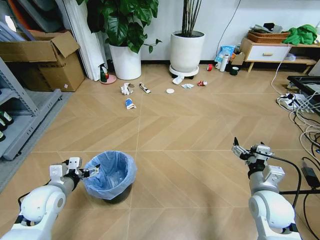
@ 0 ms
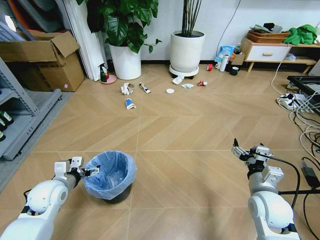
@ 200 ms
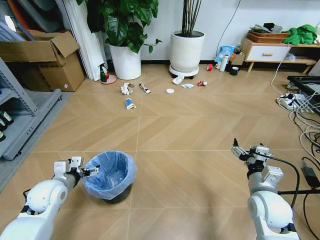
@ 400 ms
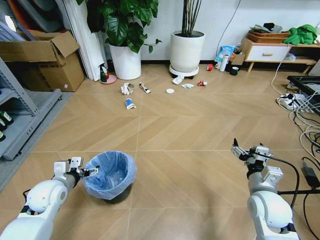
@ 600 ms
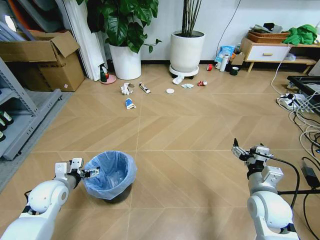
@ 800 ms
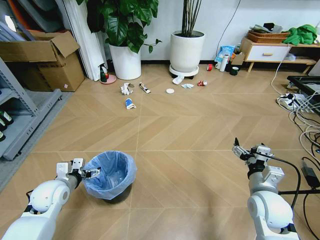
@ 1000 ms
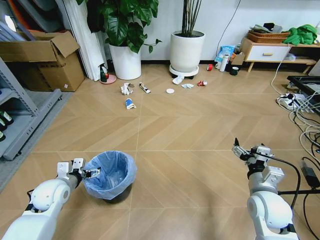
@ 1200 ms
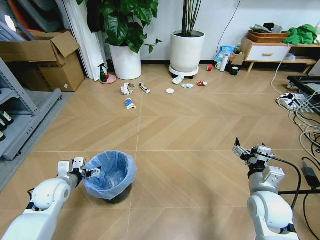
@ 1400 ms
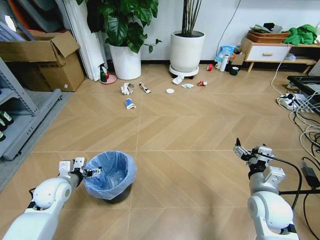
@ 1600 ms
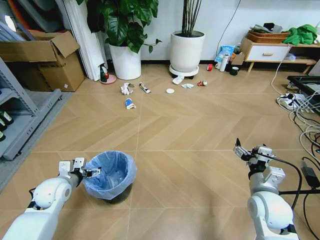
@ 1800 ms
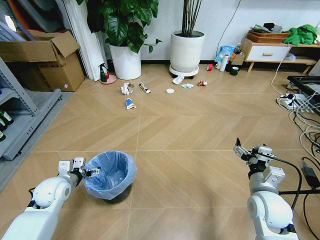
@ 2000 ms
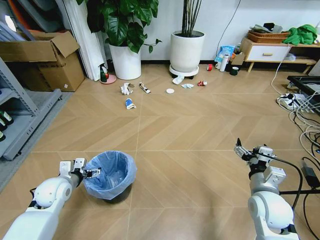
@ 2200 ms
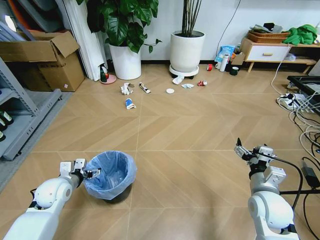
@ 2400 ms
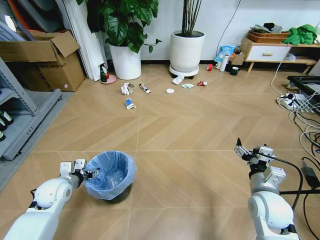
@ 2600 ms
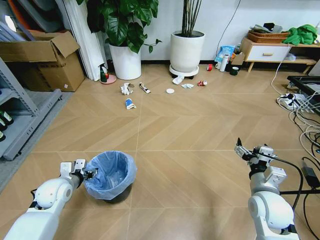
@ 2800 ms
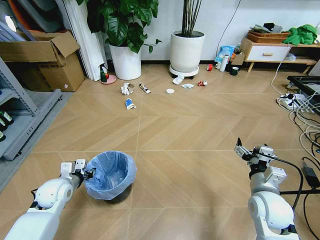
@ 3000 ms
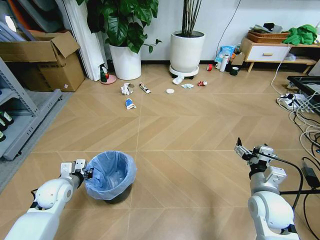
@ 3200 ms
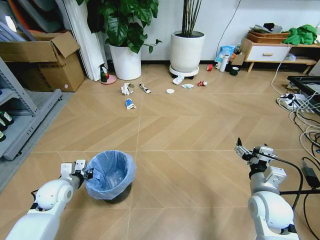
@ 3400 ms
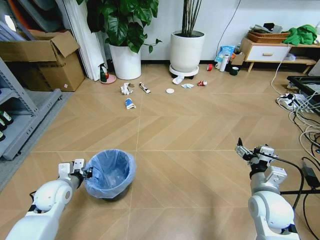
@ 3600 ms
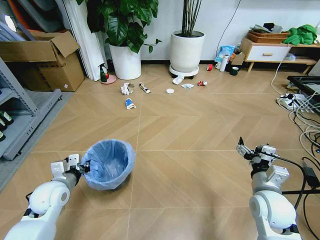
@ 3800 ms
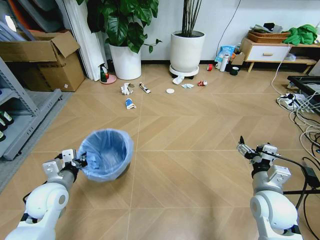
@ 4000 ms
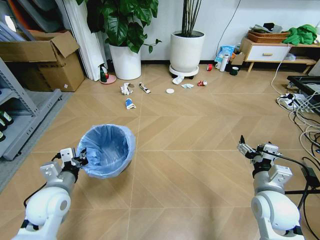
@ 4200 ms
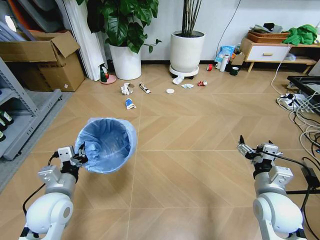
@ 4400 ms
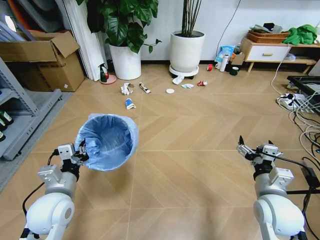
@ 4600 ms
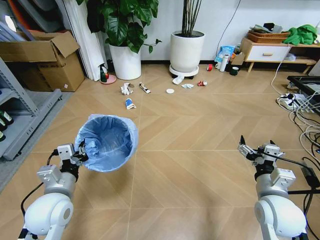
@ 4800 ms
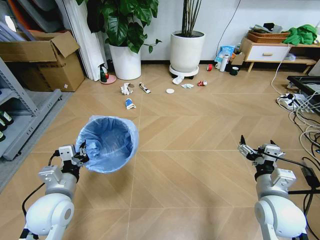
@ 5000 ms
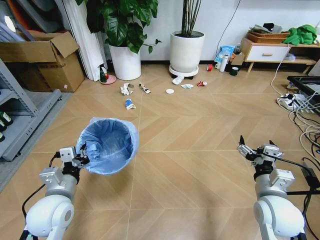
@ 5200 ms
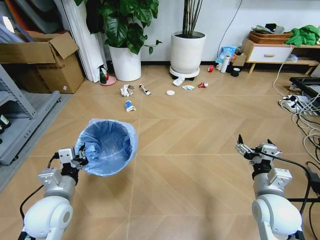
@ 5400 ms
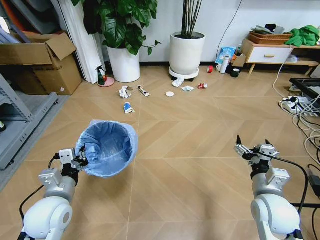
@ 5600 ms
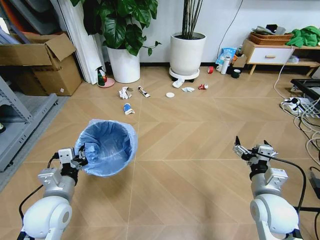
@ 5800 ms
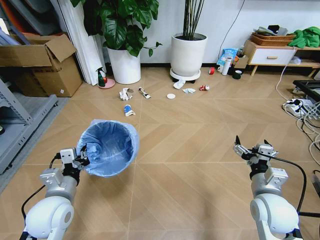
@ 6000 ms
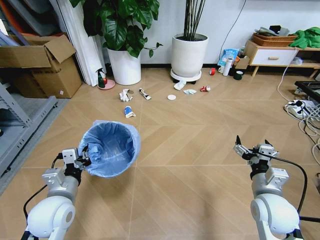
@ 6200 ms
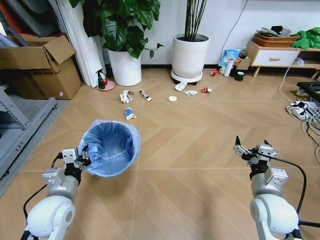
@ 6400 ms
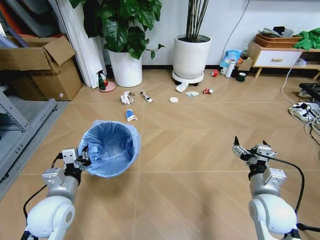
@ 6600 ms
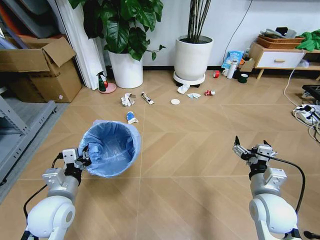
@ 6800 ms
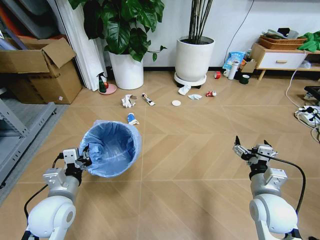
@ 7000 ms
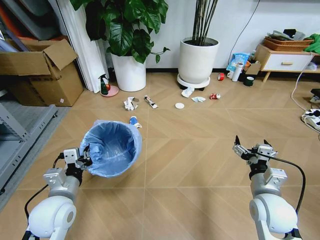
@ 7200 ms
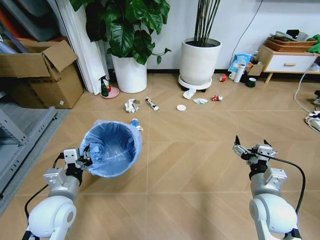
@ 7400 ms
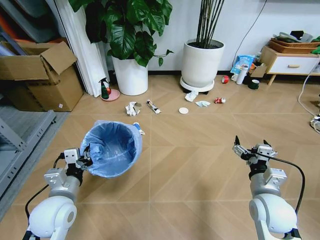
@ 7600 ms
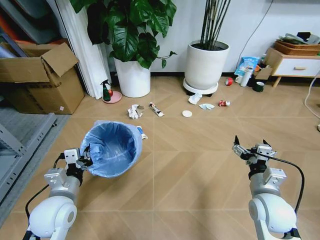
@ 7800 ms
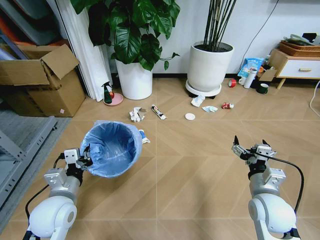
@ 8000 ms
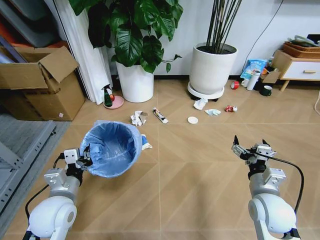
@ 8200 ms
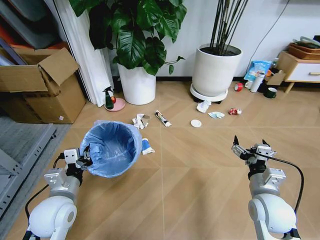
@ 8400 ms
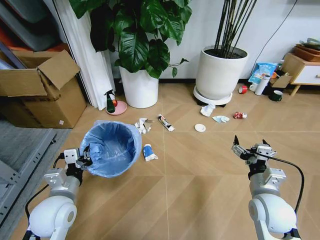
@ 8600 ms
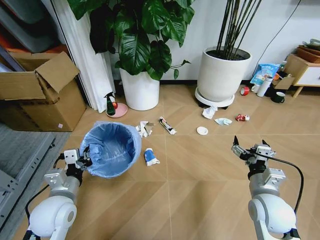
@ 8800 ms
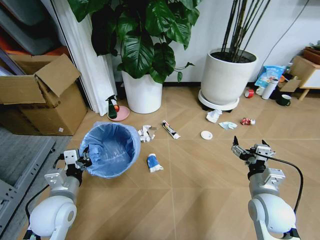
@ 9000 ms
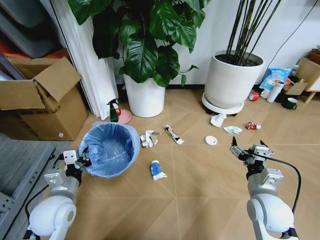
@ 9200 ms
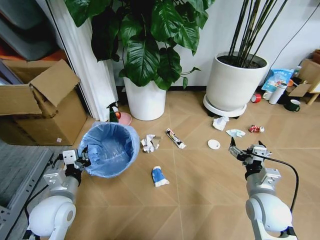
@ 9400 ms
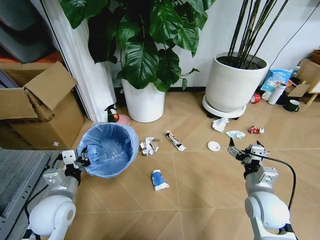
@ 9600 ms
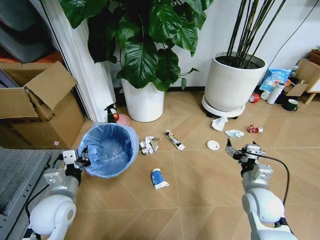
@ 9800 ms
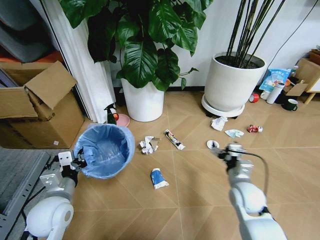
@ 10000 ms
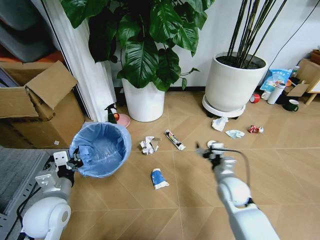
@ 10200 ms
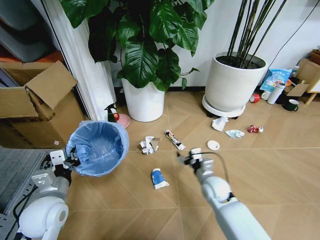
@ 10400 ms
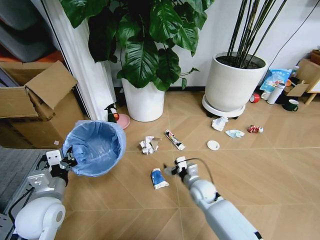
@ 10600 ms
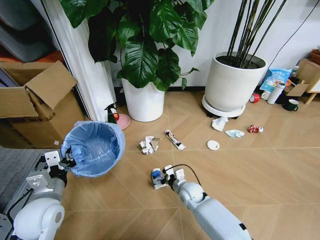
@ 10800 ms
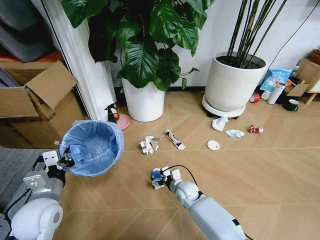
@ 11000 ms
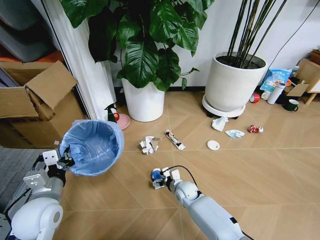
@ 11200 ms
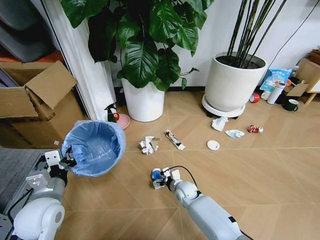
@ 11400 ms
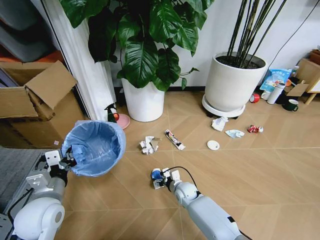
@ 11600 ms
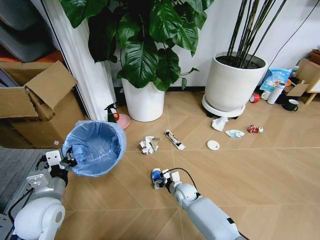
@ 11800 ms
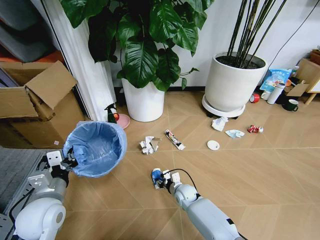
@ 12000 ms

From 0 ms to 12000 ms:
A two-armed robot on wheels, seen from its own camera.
Task of the whole recording: Pick up the trash bin and place the garbage on the floor into it.
From 1600 ms to 3000 ms: The left gripper closes.
From 3000 ms to 4400 ms: The left gripper is displaced backward, upward and to the right by about 15 cm.
From 9000 ms to 10400 ms: The right gripper moves downward, forward and to the left, approximately 20 cm.
From 10400 ms to 12000 ms: The right gripper is displaced downward and to the left by approximately 15 cm, and closes up.

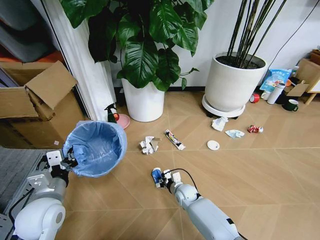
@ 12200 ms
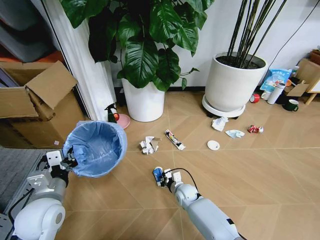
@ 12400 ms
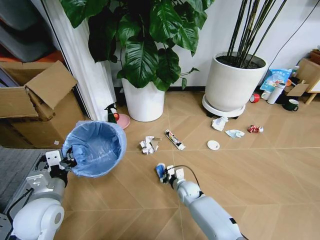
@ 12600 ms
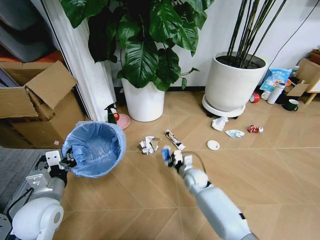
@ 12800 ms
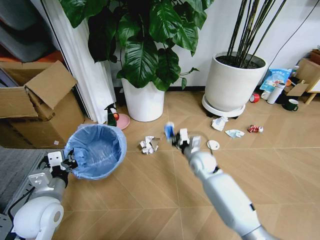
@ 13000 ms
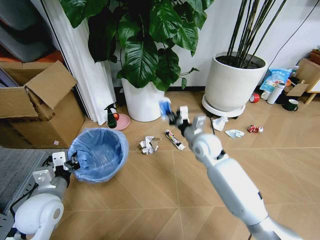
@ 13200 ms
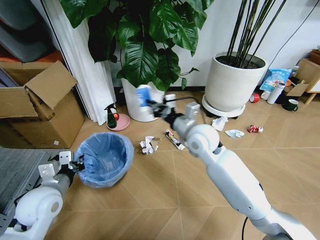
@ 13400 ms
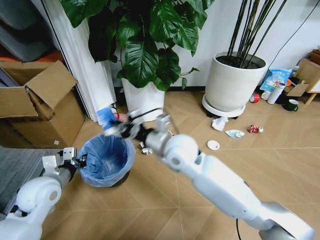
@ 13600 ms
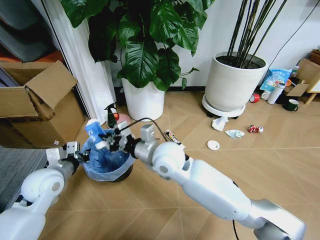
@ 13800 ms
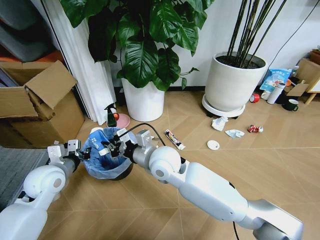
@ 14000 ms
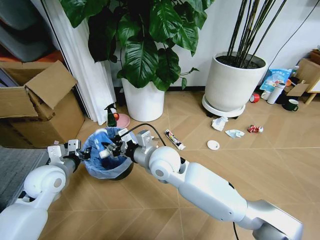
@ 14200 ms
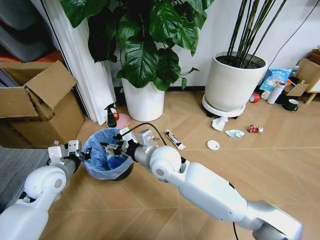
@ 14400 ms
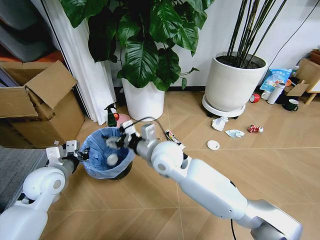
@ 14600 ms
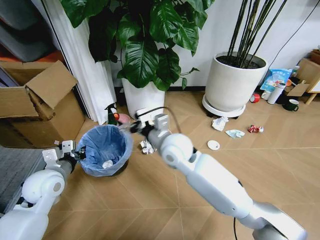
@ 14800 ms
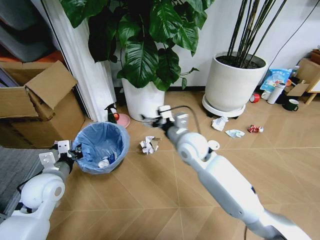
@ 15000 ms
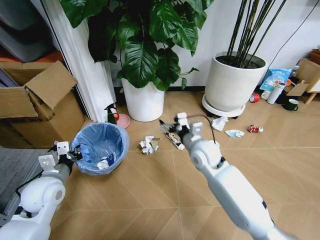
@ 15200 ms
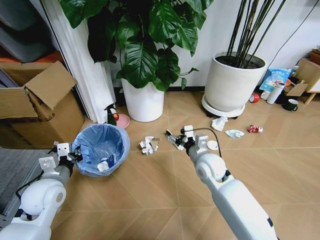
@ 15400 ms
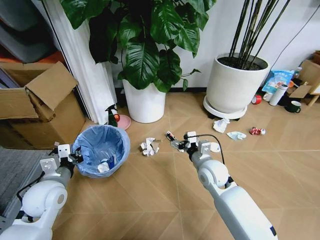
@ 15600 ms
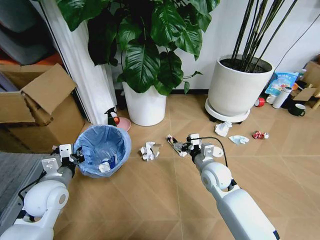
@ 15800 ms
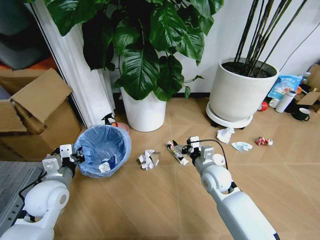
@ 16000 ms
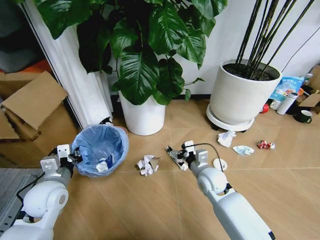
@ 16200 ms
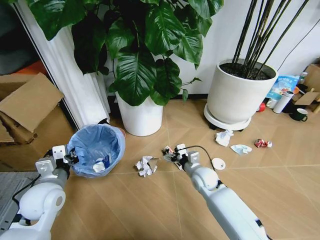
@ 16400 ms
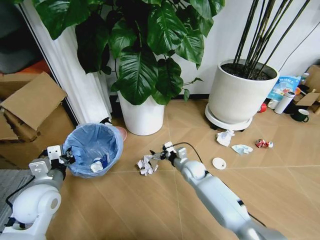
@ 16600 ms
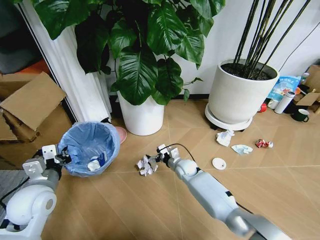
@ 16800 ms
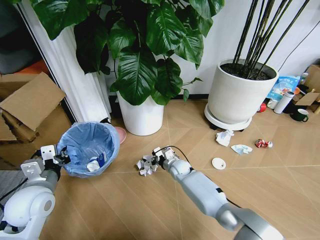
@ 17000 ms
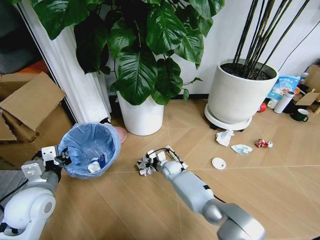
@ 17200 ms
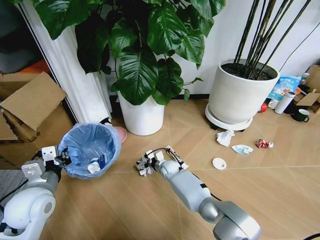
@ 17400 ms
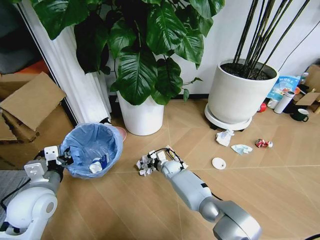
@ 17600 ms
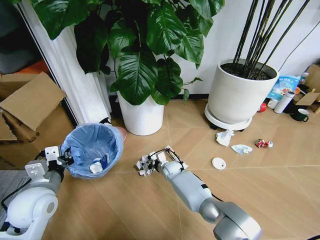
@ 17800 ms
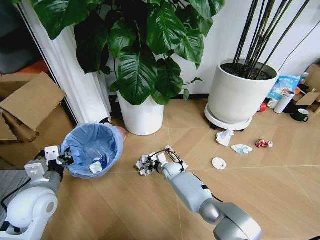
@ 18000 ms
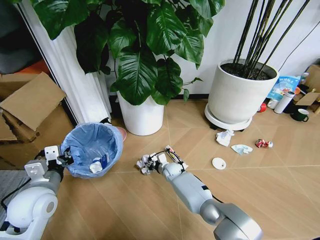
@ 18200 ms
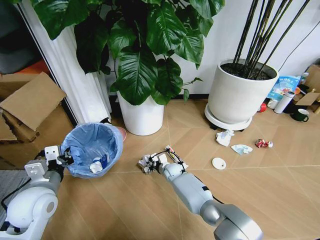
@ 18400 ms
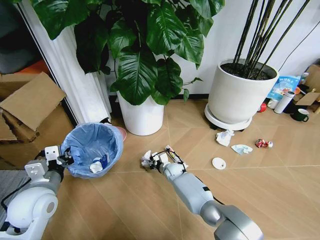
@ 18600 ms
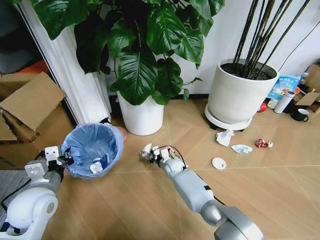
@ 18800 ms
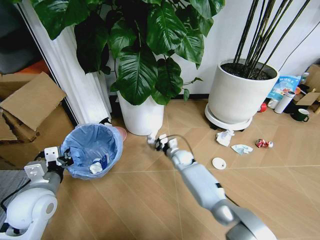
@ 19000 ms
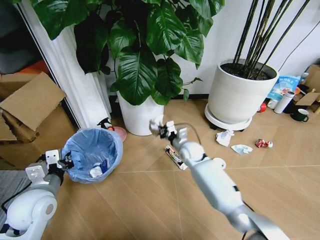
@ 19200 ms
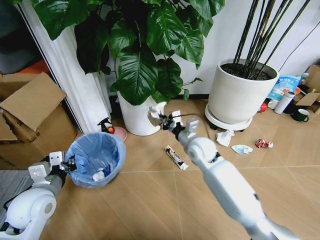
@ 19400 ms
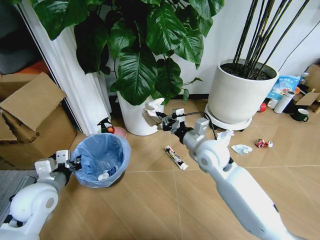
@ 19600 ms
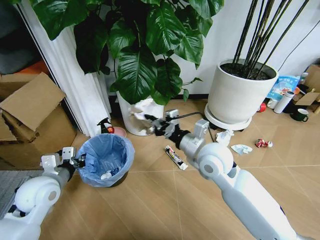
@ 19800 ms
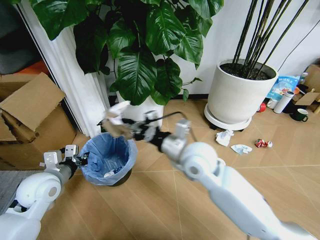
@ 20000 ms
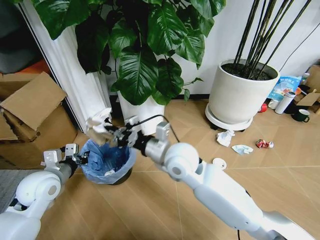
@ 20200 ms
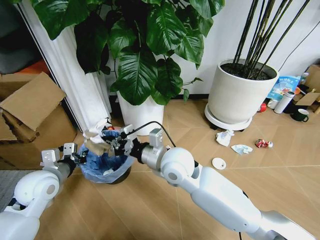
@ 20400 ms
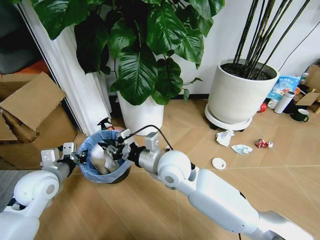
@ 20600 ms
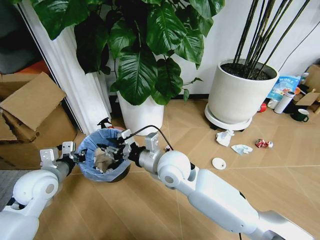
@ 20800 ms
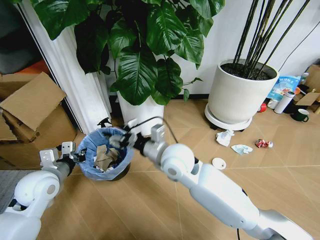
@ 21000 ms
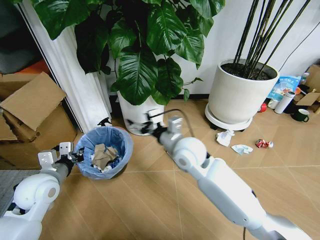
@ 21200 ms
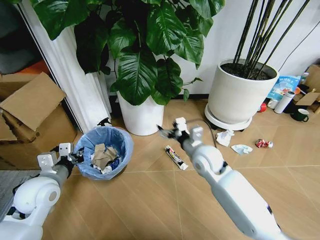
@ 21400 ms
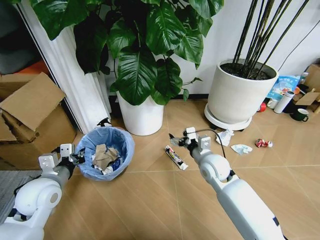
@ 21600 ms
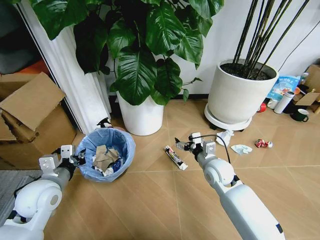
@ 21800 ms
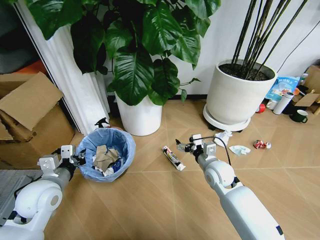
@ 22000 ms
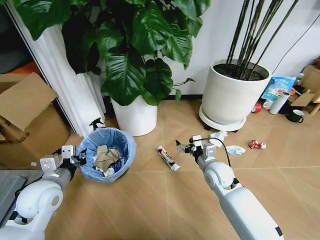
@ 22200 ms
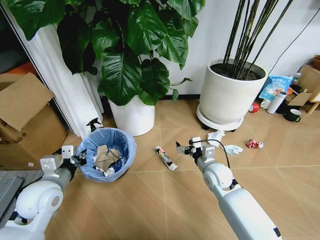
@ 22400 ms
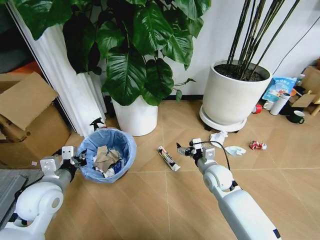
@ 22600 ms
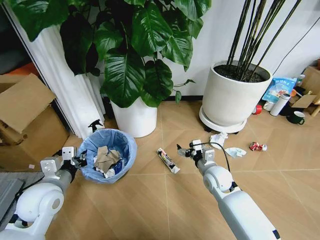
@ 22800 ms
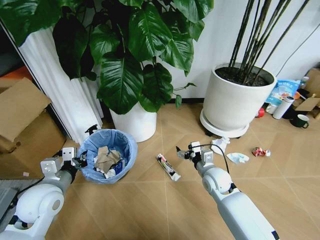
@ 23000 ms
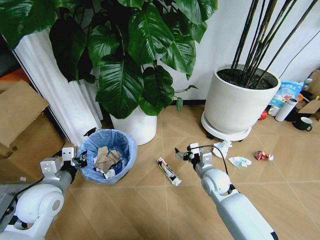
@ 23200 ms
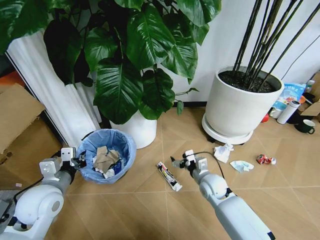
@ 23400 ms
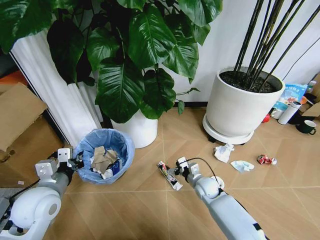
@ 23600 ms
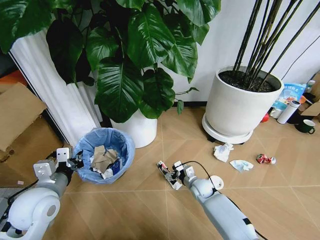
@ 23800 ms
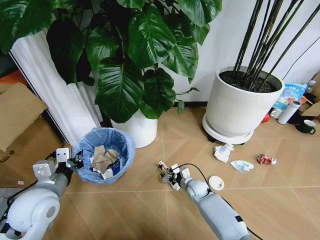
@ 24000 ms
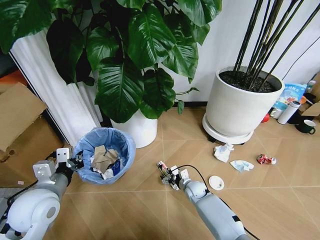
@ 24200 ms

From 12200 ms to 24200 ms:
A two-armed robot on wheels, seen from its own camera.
Task of the whole recording: Pick up the trash bin and place the garbage on the floor into it.
From 12200 ms to 13800 ms: The left gripper shifts approximately 10 cm forward. Meanwhile the right gripper goes some 35 cm upward.
From 13800 ms to 15200 ms: The right gripper heads to the right and downward, covering some 15 cm, and opens its fingers.
From 15200 ms to 16600 ms: The right gripper goes some 15 cm downward.
From 16600 ms to 18200 ms: The right gripper is displaced downward and to the left by approximately 10 cm, and closes its fingers.
From 18200 ms to 19800 ms: The right gripper heads upward and backward, covering some 35 cm, and closes its fingers.
From 19800 ms to 21200 ms: The right gripper heads to the left, covering some 5 cm, and opens up.
From 21200 ms to 22600 ms: The right gripper shifts some 20 cm downward and to the right.
From 22600 ms to 24200 ms: The right gripper is displaced downward by some 20 cm.
